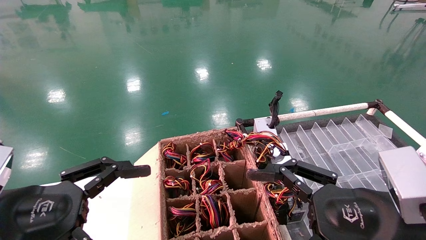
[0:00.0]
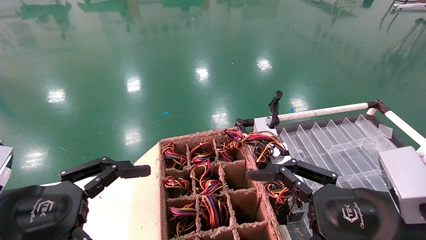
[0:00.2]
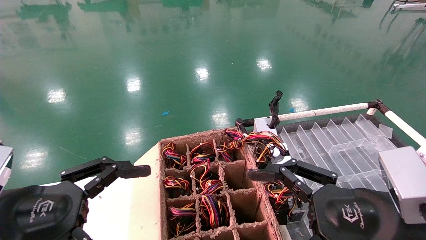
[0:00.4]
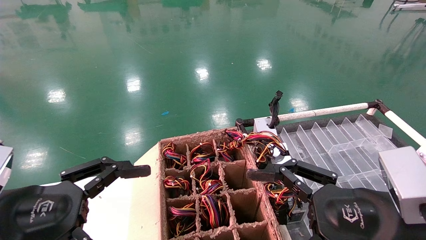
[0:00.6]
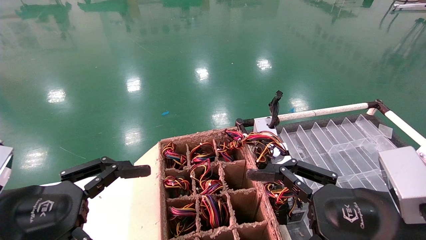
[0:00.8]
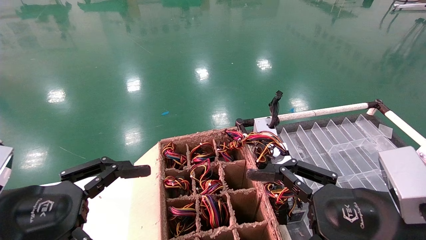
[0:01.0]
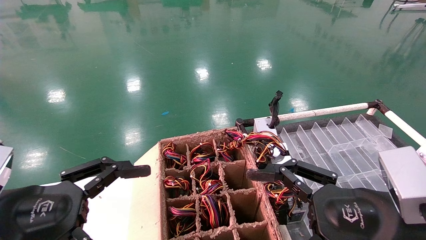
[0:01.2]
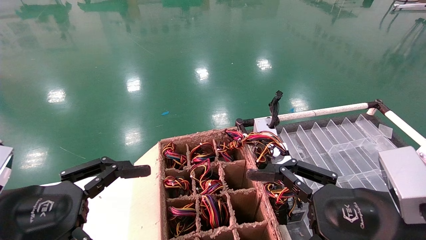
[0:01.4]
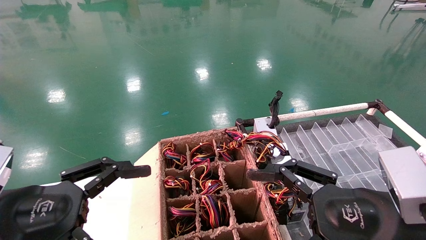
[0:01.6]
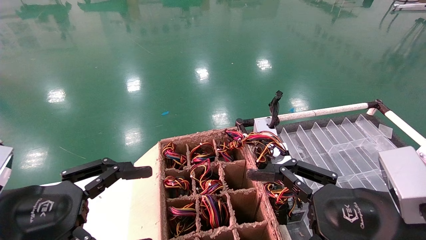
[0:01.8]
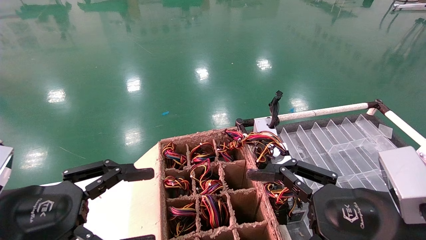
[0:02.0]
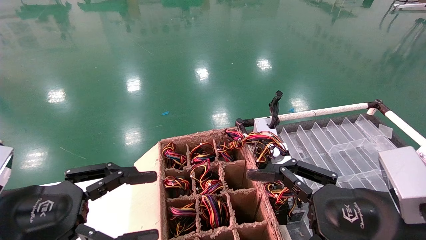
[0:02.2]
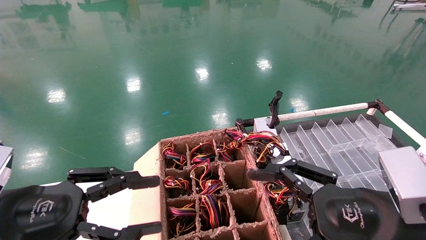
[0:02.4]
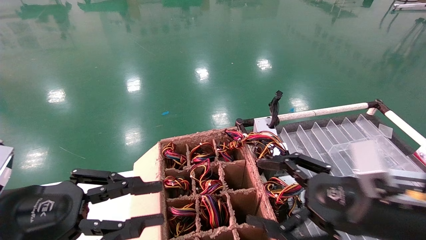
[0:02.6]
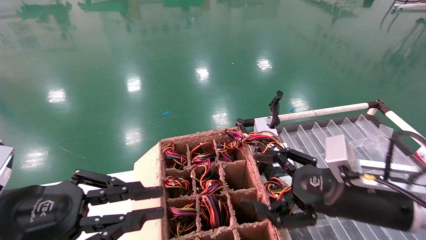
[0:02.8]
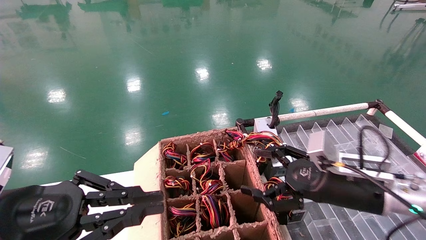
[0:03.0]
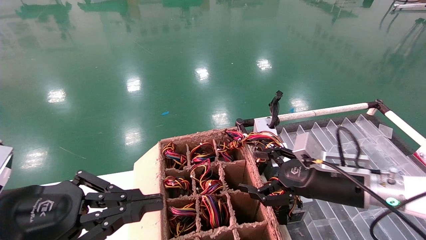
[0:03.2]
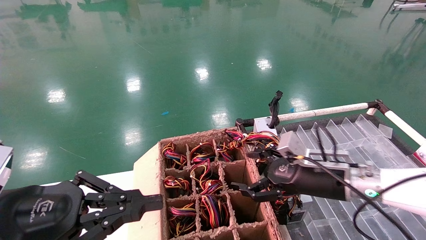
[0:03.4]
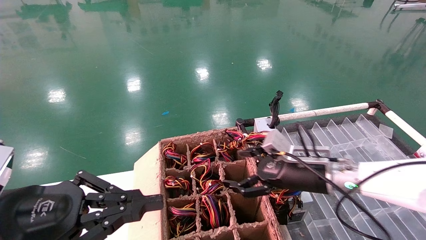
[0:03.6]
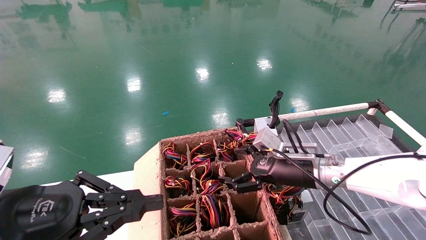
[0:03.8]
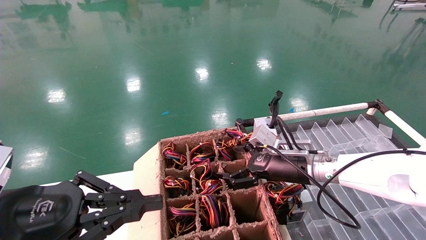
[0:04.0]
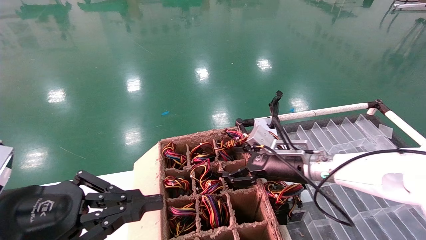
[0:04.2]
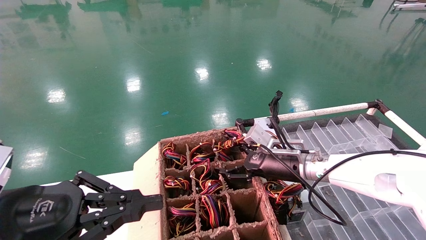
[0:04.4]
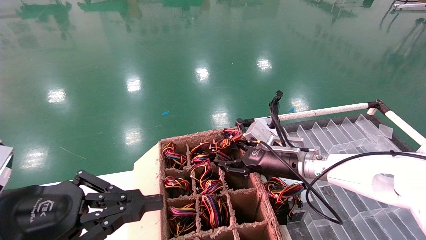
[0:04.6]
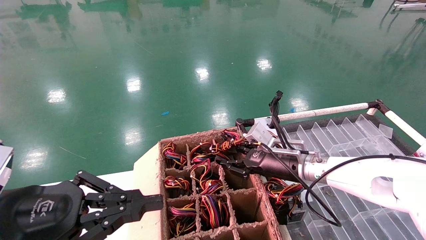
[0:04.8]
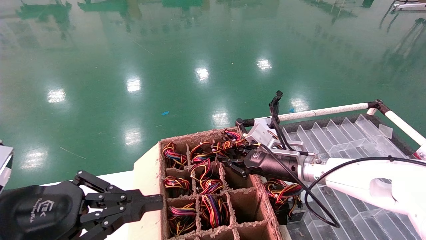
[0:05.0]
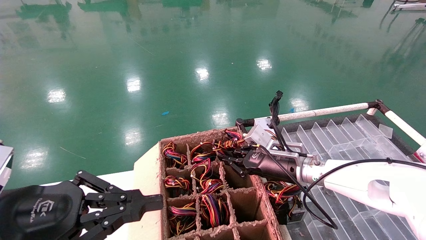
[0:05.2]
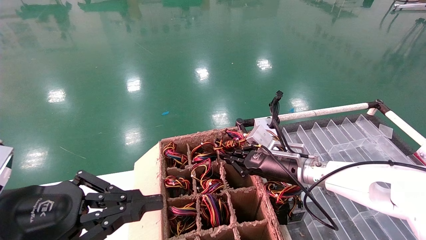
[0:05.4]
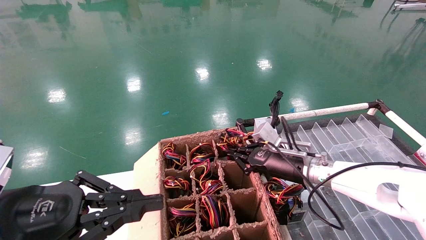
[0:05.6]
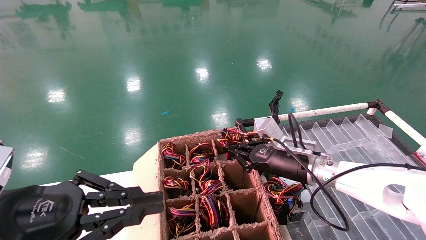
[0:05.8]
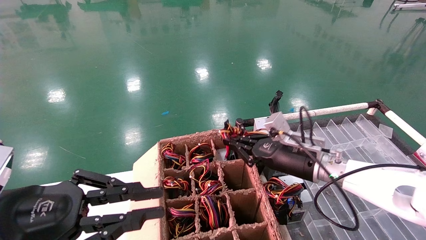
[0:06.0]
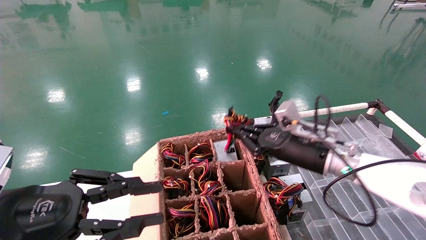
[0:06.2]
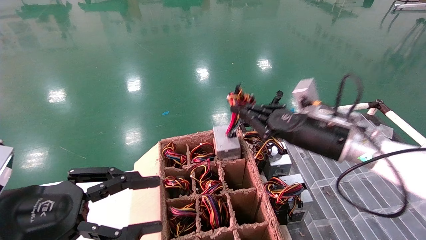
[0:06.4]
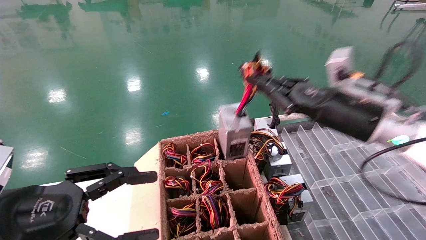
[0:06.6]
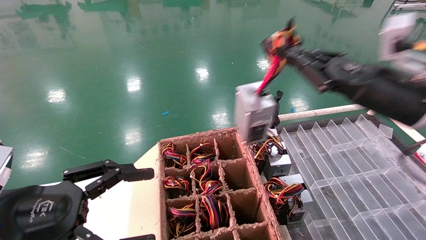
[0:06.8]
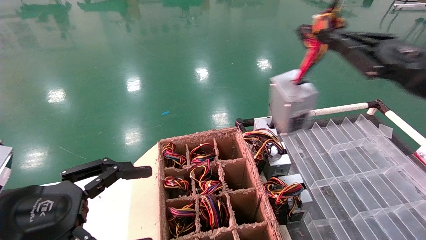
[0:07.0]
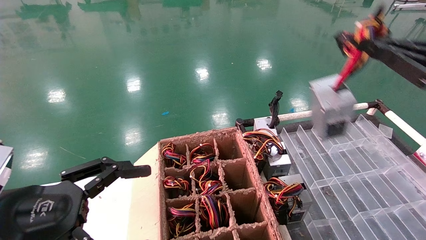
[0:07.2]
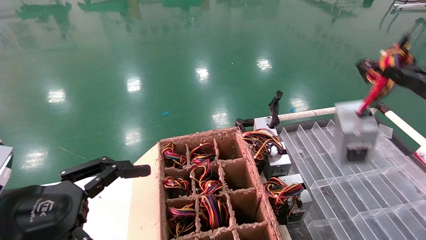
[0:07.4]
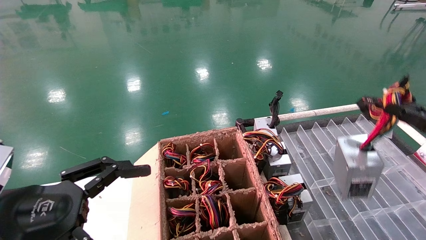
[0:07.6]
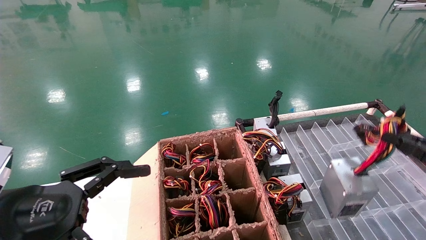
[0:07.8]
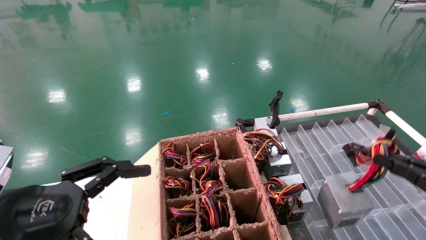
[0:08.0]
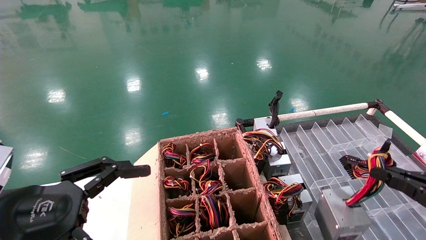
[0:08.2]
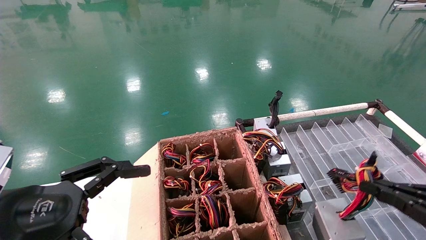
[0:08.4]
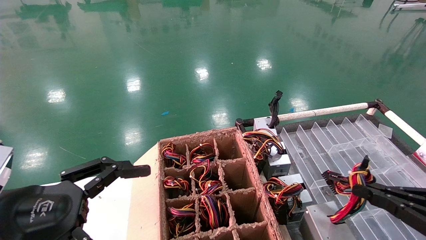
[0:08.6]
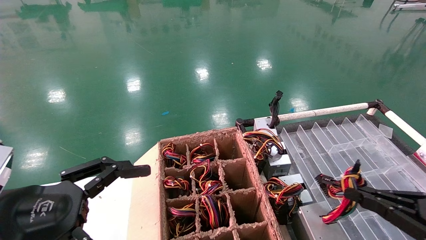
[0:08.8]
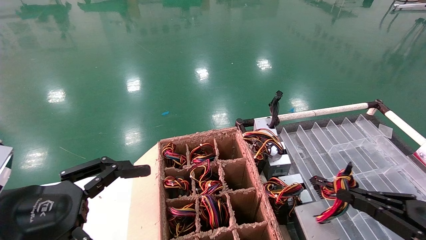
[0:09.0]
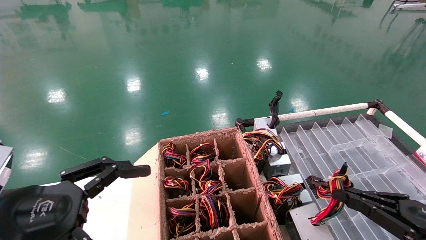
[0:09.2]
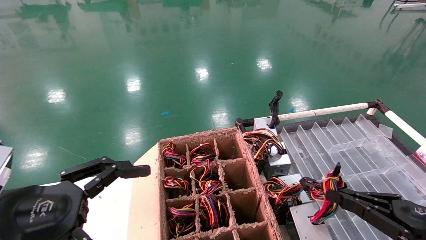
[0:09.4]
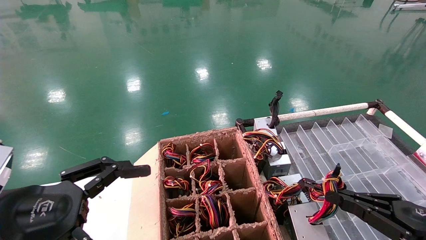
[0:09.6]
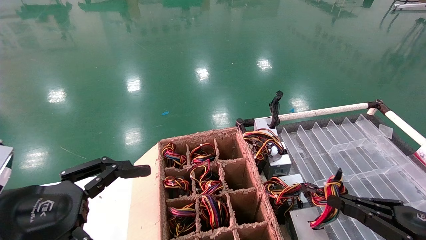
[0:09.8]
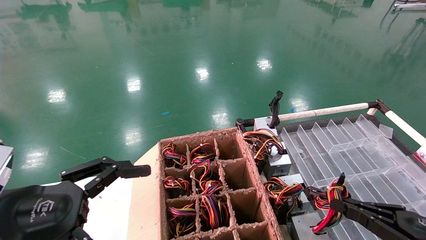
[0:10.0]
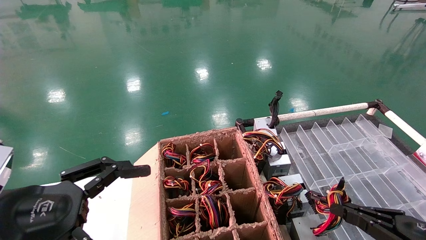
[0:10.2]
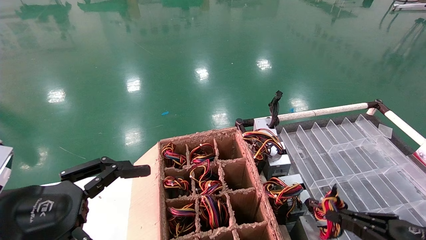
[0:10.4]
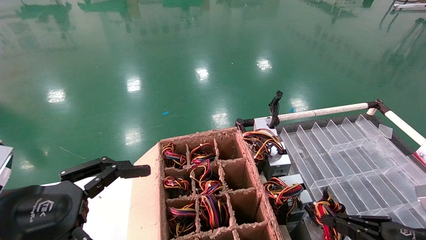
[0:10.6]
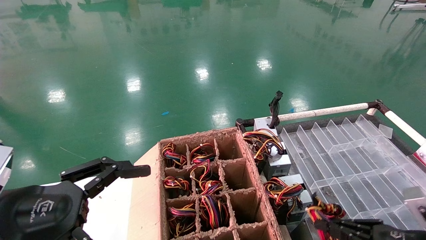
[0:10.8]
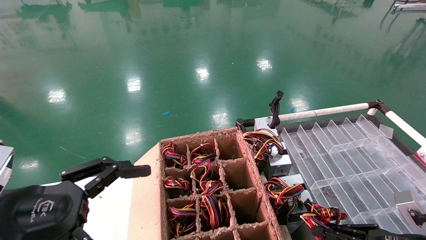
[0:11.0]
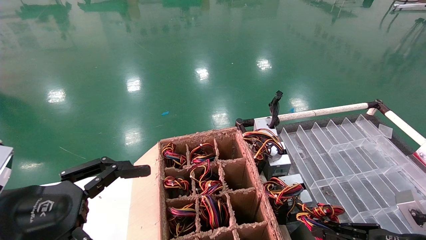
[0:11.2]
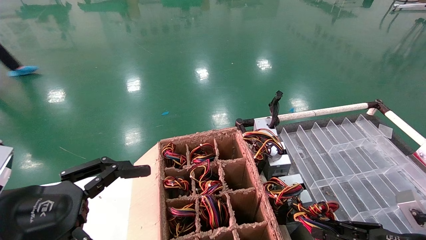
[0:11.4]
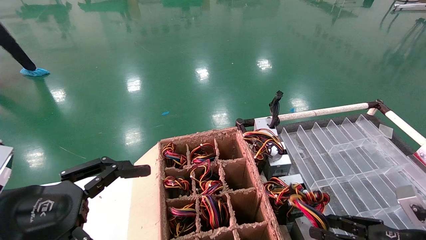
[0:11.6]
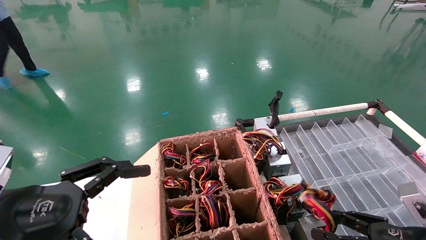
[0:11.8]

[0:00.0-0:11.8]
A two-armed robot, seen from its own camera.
Step, 0:02.2 to 0:05.4: Grab and lift the power supply from the large box.
Step, 0:05.6 to 0:11.4: Place the power supply on the operating table.
0:00.0 to 0:01.4: The two grippers keep their place.
0:01.4 to 0:03.0: The right gripper shifts some 15 cm forward; the left gripper closes.
0:03.0 to 0:04.4: The right gripper travels forward and to the left by roughly 15 cm.
0:04.4 to 0:06.0: The right gripper closes its fingers.
0:06.0 to 0:07.4: The right gripper travels to the right, backward and upward by about 30 cm, while the left gripper opens up.
0:07.4 to 0:08.8: The right gripper travels downward by some 15 cm.
0:08.8 to 0:10.4: The right gripper is displaced downward by approximately 5 cm.
0:10.4 to 0:11.8: The right gripper opens its fingers.

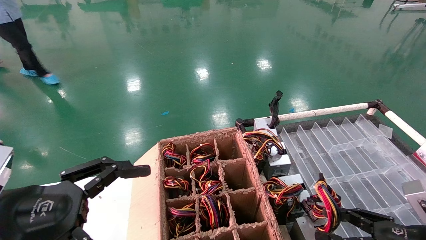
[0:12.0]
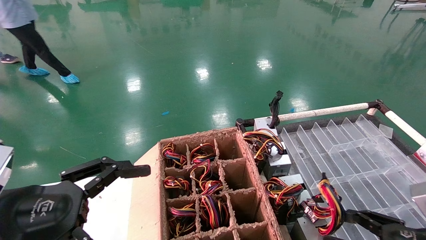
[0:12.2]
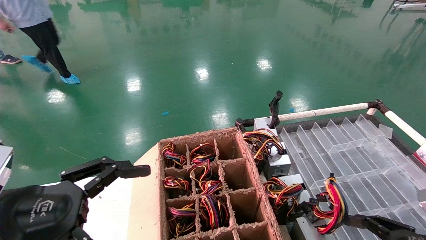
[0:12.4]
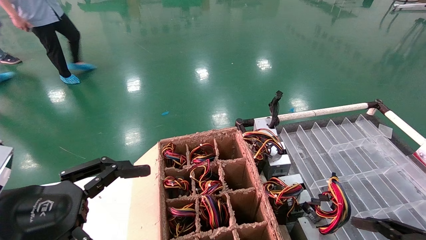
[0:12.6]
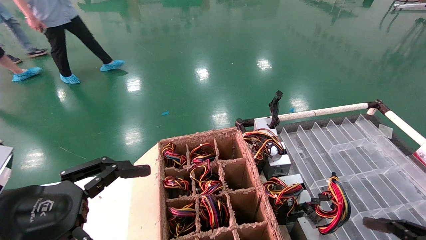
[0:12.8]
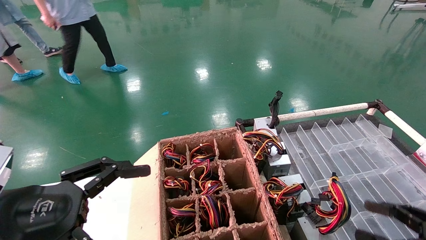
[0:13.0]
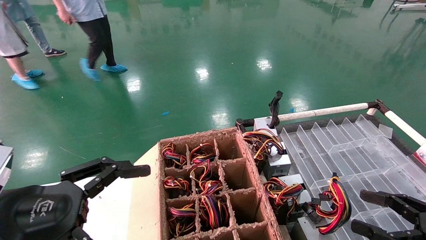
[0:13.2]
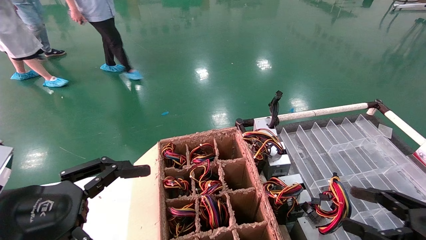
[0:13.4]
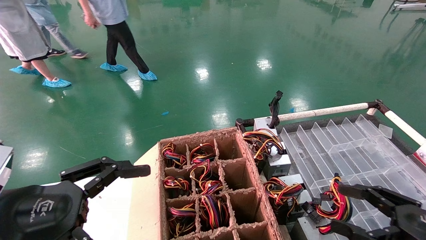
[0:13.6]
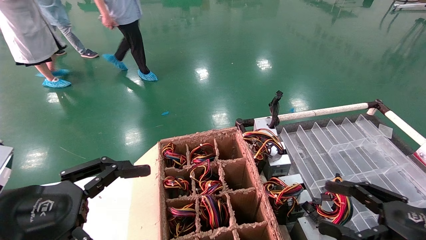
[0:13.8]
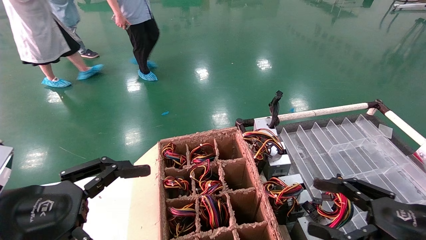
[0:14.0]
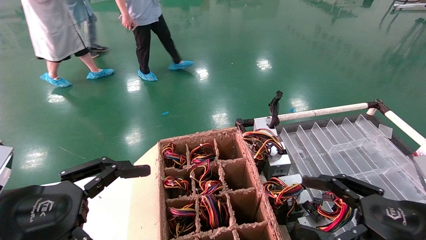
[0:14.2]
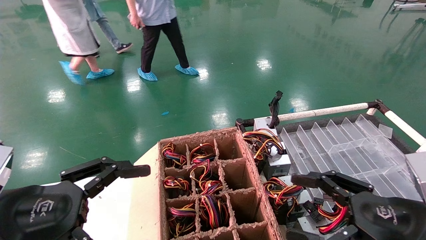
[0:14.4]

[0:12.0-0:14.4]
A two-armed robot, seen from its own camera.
0:12.0 to 0:13.2: The right gripper ends up some 5 cm from where it was, and opens its fingers.
0:13.2 to 0:14.4: The right gripper travels to the left by approximately 10 cm.
